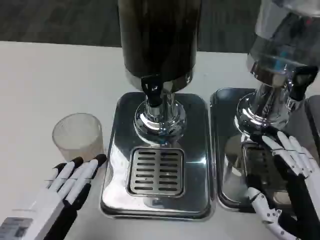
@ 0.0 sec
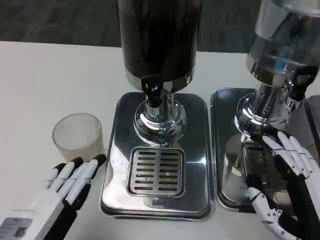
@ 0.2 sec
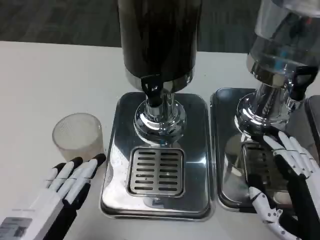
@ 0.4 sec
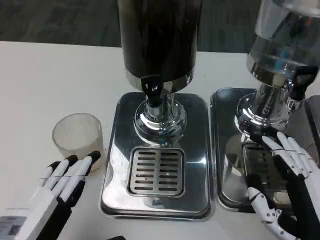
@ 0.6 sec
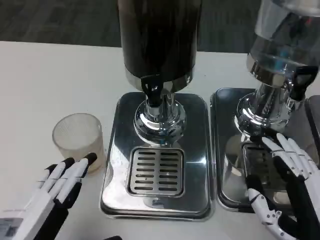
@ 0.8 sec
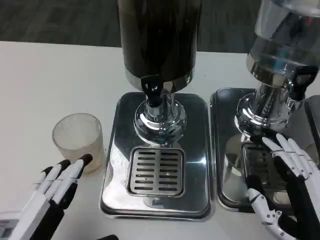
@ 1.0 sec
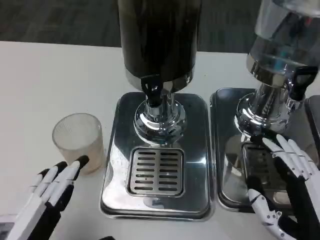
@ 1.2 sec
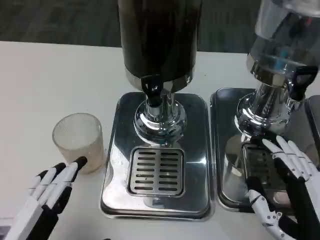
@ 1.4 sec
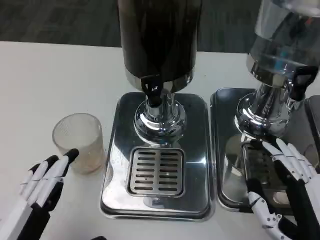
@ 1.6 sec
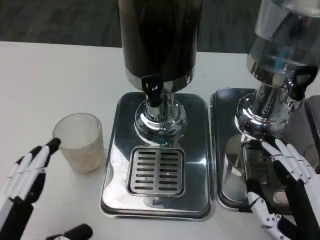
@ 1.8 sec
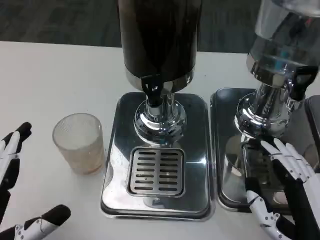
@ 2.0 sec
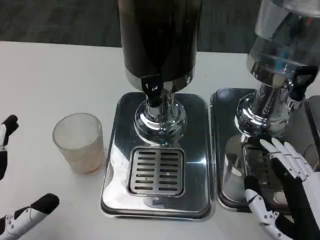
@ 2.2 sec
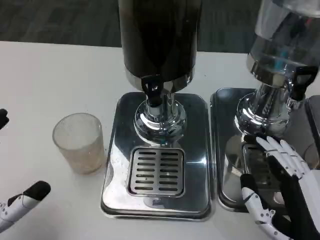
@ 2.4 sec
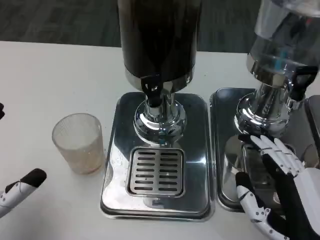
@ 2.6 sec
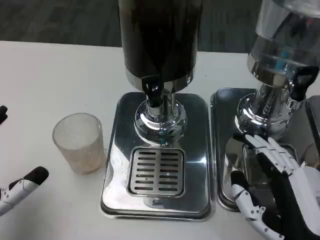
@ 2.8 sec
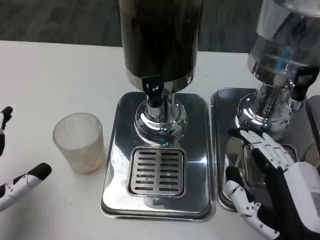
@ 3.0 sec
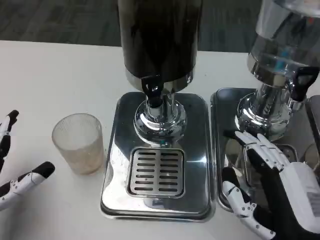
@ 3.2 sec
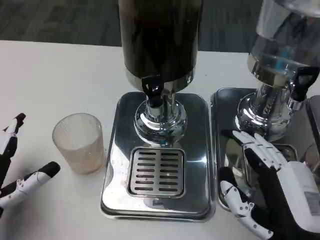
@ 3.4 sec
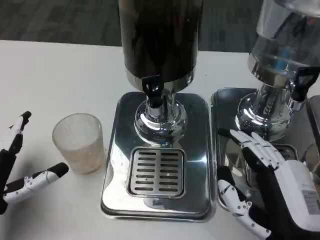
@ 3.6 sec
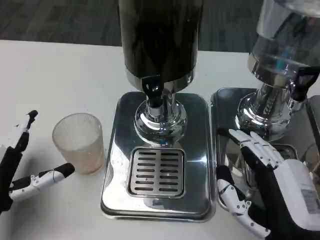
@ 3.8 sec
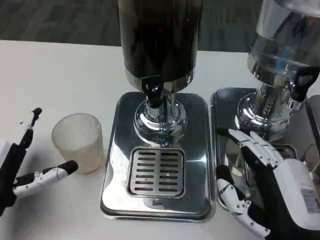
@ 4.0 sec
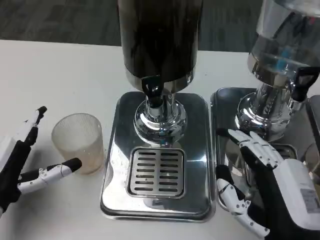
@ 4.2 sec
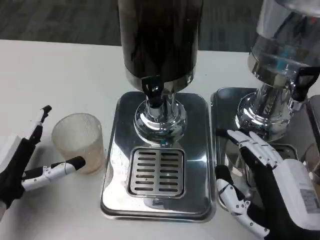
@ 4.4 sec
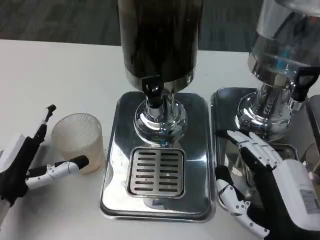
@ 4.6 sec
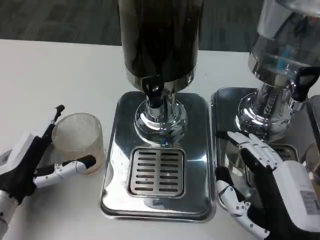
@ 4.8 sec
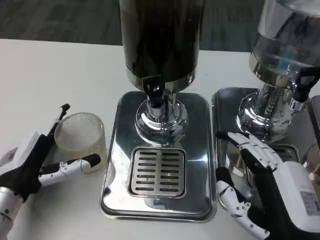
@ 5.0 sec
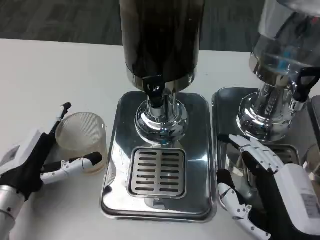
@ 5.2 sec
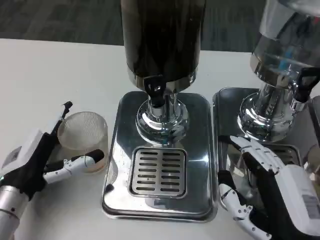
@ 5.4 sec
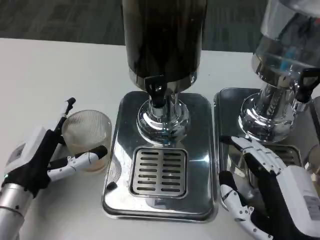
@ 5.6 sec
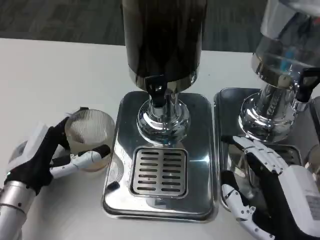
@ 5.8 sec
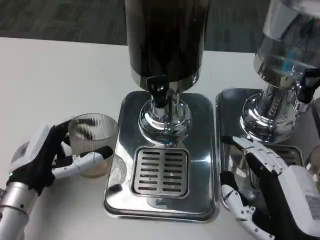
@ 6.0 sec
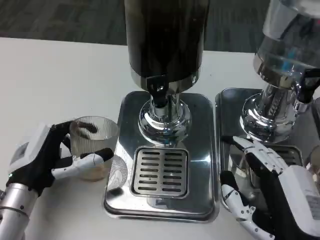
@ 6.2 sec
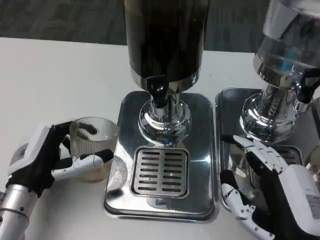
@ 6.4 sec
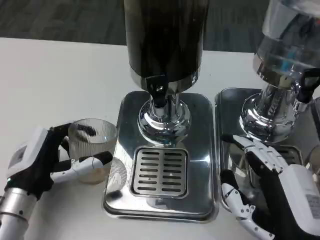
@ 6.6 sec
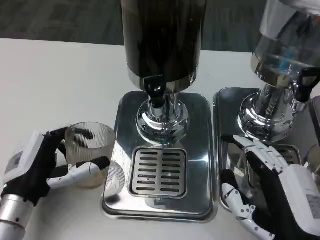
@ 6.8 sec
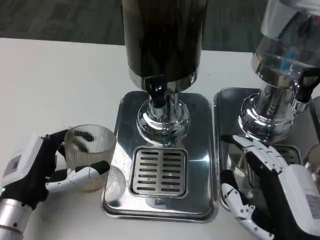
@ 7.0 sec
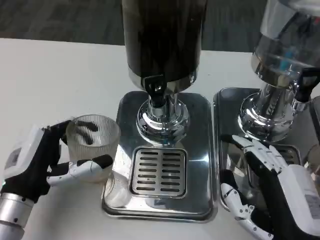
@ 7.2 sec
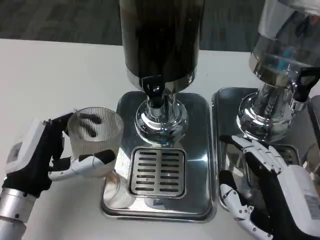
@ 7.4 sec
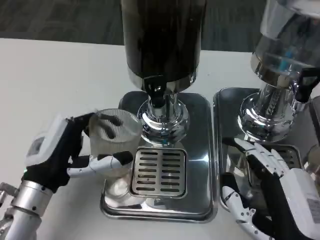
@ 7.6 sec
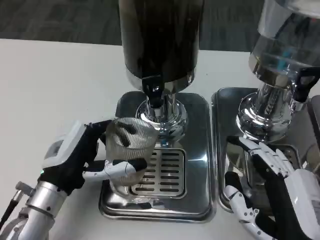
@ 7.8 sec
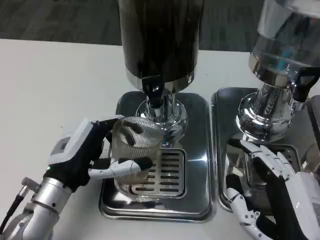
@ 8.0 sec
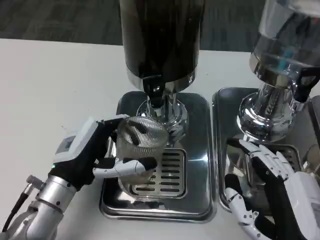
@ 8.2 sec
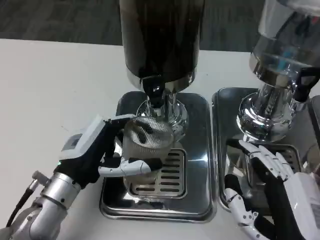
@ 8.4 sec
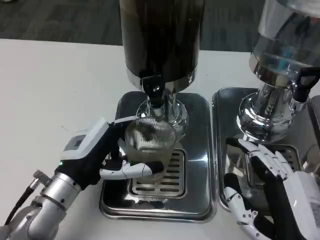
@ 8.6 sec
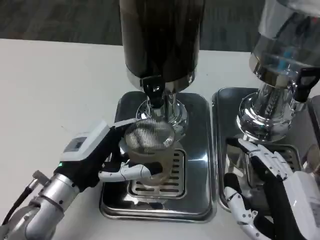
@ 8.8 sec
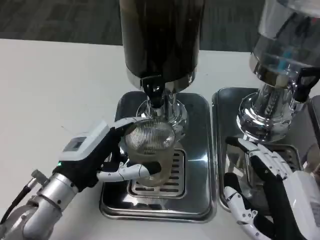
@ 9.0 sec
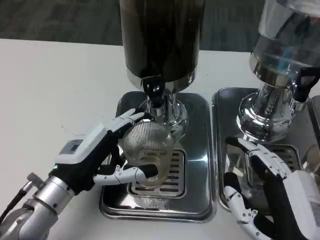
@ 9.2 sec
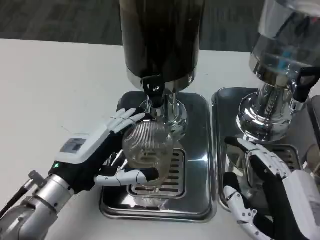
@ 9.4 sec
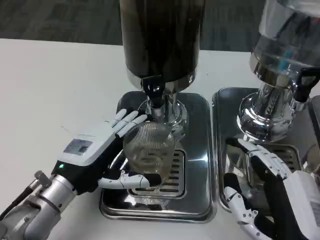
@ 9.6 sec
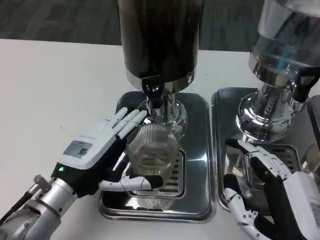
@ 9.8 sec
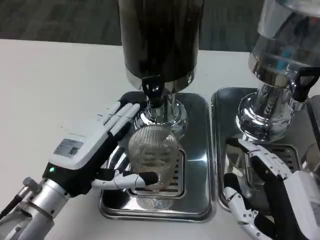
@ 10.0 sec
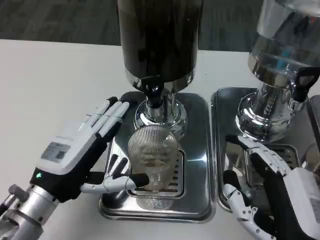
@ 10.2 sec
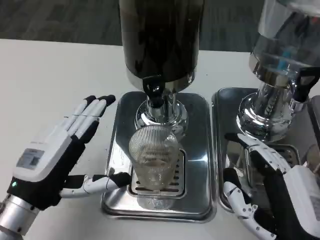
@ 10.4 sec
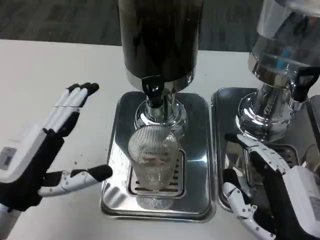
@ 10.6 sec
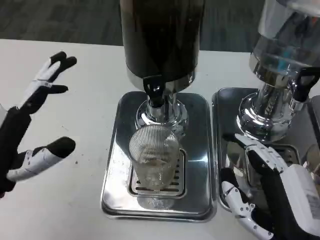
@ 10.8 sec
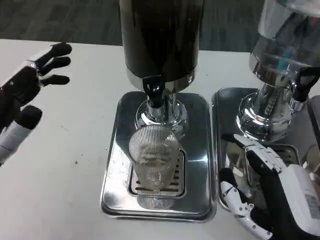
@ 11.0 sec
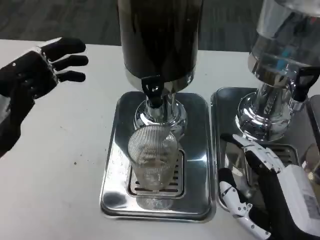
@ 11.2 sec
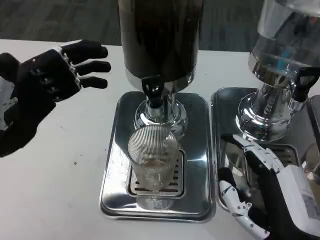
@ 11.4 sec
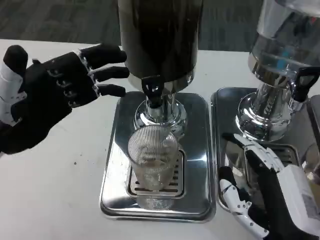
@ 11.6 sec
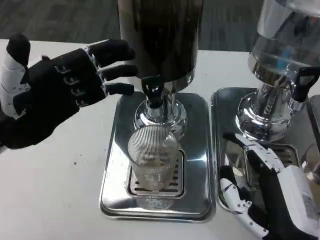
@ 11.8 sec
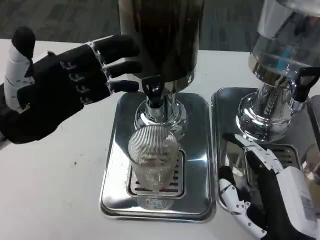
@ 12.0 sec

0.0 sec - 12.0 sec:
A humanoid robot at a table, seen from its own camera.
Task of the whole recording: Grasp the cup under the faucet to collect the drink, then remove the cup.
0.0 sec - 1.6 sec: The hands move only a little.
1.6 sec - 3.0 sec: The left hand travels forward and to the left by approximately 10 cm.
3.0 sec - 4.4 sec: The left hand travels forward by about 5 cm.
9.0 sec - 10.4 sec: The left hand heads backward, covering some 5 cm.
10.4 sec - 12.0 sec: The left hand moves upward and forward, about 15 cm.

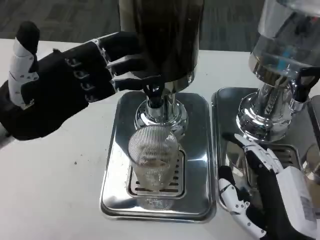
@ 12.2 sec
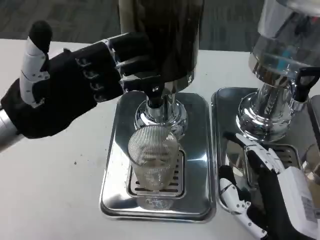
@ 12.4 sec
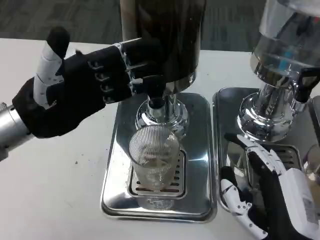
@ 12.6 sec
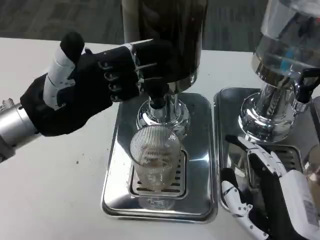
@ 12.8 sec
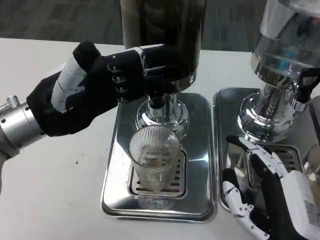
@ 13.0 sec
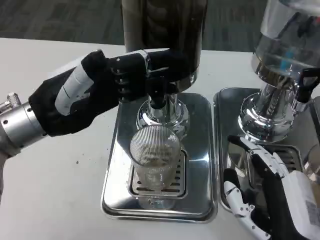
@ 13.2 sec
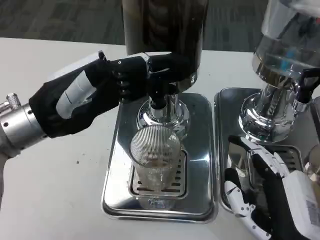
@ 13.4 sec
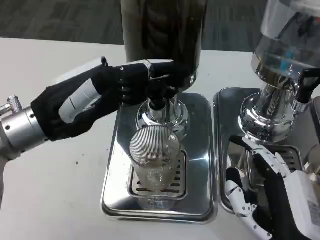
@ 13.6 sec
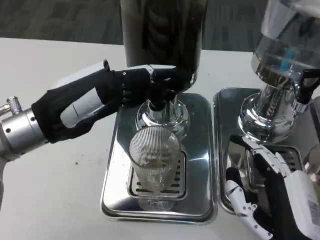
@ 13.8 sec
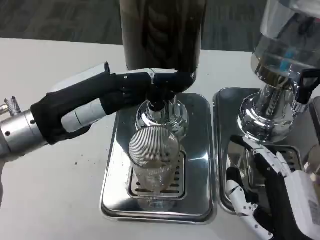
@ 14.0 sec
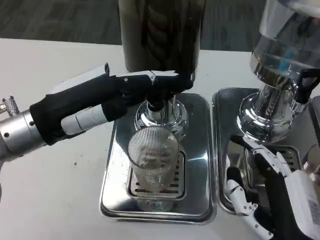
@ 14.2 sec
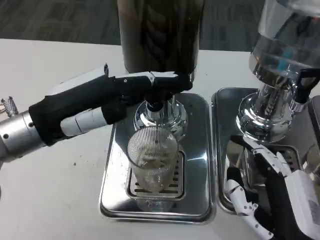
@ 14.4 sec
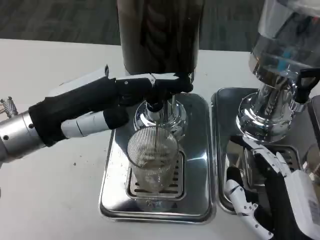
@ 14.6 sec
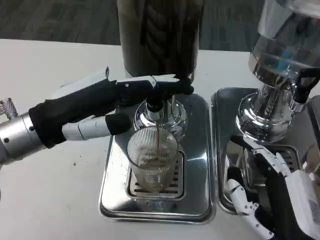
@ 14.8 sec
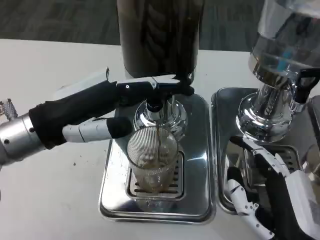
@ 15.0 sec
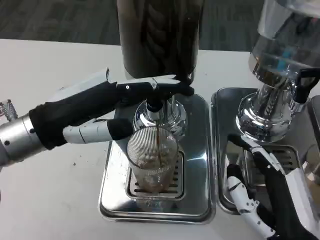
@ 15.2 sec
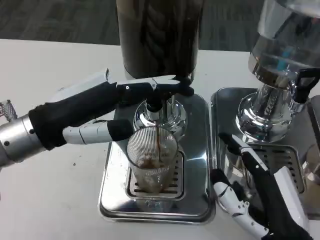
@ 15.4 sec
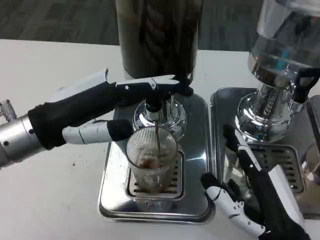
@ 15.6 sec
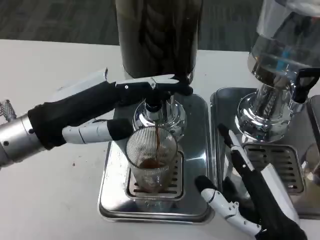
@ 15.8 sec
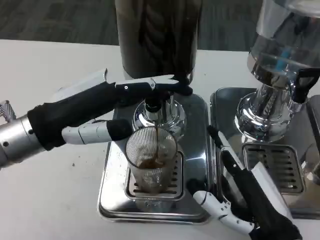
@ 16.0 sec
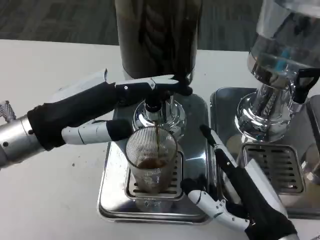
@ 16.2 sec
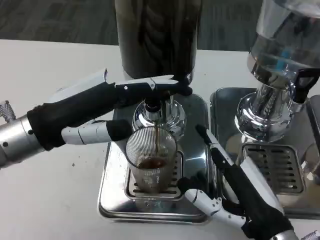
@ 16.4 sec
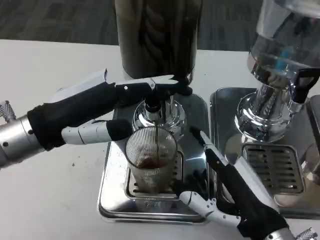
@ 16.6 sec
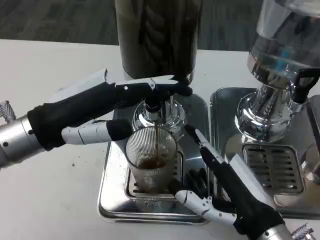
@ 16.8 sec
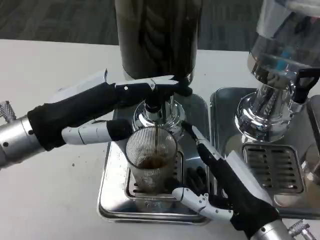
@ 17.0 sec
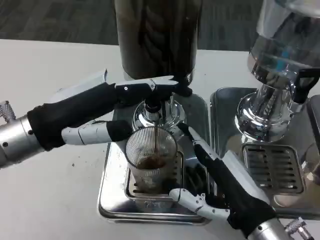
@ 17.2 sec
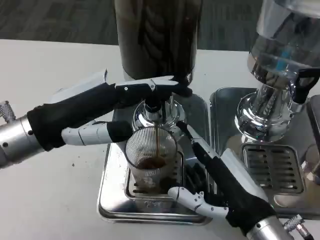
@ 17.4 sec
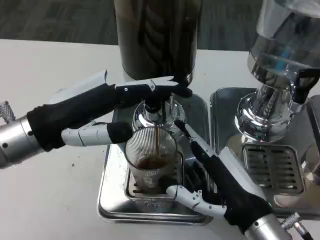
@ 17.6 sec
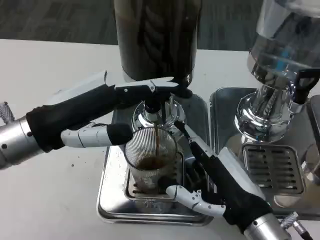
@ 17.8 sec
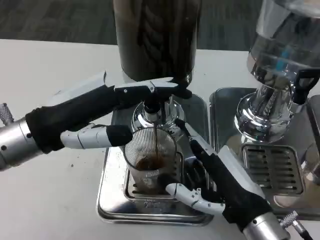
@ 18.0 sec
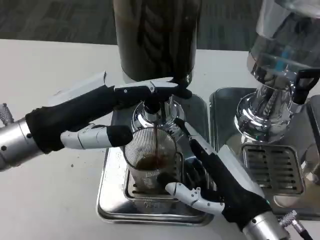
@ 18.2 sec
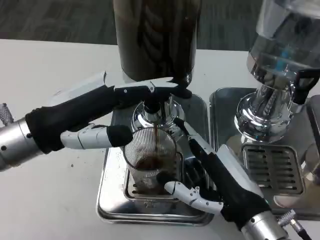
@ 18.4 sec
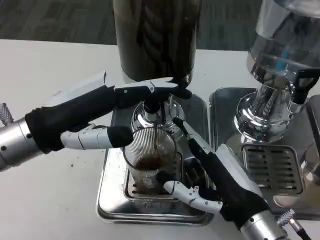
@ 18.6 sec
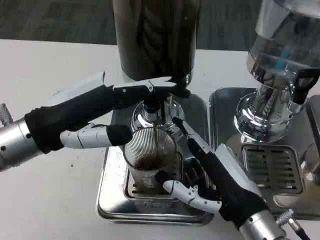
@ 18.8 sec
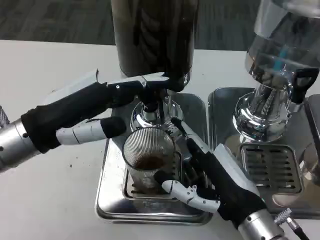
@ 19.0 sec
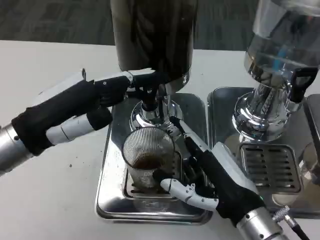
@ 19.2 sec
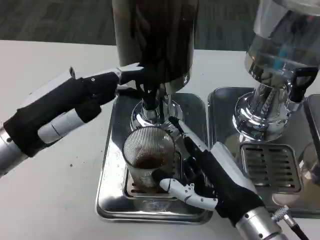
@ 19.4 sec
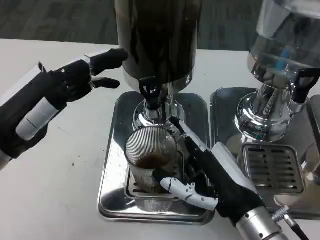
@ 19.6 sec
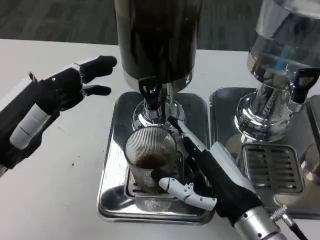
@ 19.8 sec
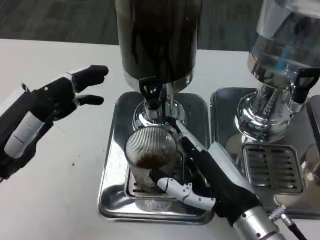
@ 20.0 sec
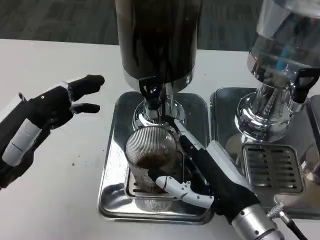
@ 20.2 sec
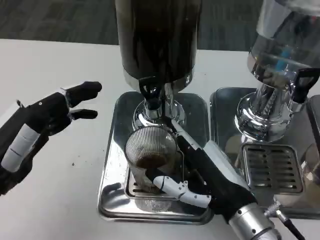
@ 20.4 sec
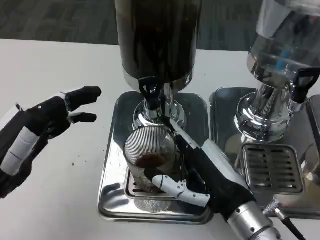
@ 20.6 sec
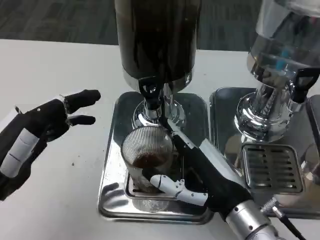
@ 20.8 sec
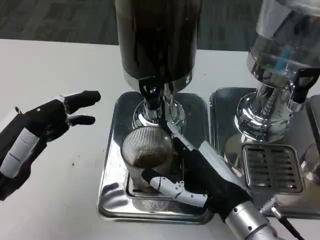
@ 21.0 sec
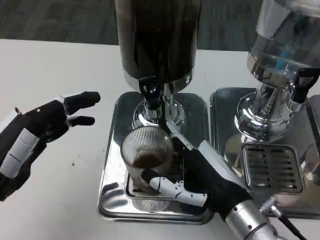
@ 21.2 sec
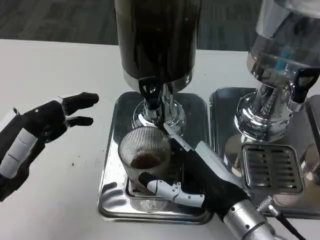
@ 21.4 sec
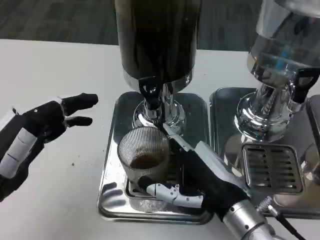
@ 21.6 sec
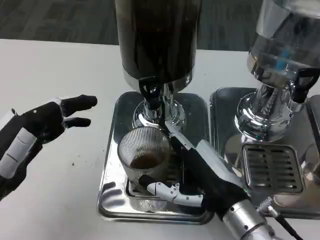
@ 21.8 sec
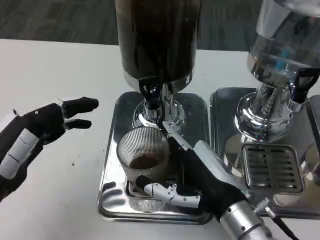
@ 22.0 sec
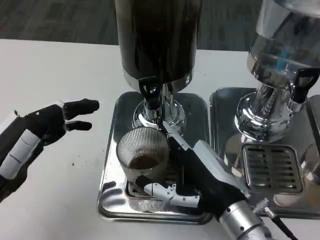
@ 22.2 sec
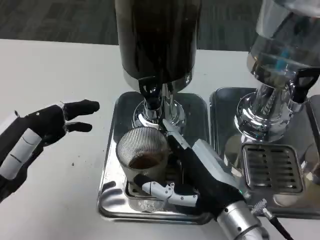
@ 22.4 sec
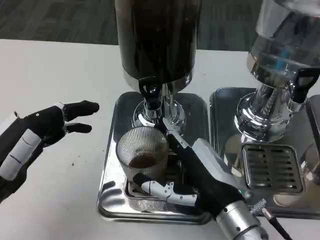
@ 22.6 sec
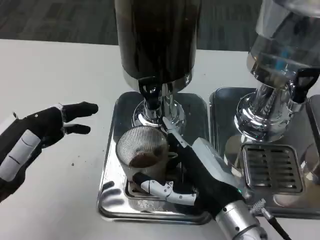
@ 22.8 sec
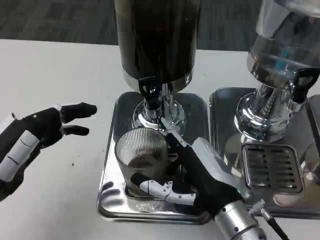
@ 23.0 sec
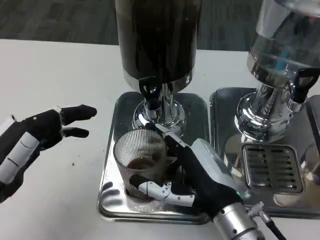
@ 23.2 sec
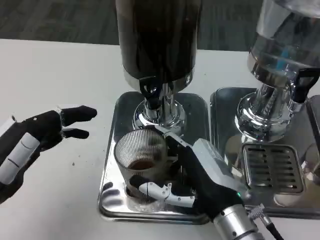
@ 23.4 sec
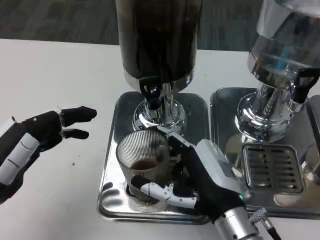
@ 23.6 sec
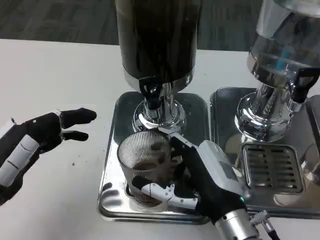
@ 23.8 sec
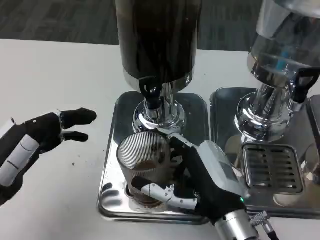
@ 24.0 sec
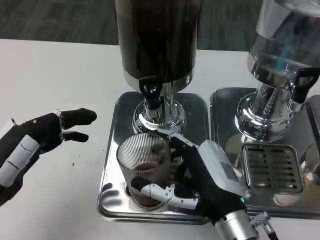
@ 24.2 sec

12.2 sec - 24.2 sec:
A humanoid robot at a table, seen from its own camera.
Task of the whole recording: Grasp the cup under the faucet to collect the drink, then remove the cup.
16.6 sec - 18.2 sec: The hands make only small movements.
18.2 sec - 19.8 sec: The left hand moves approximately 5 cm.
19.8 sec - 24.2 sec: The hands stay close to where they were, moving slightly.
